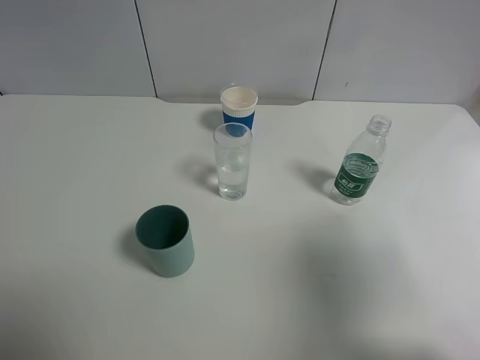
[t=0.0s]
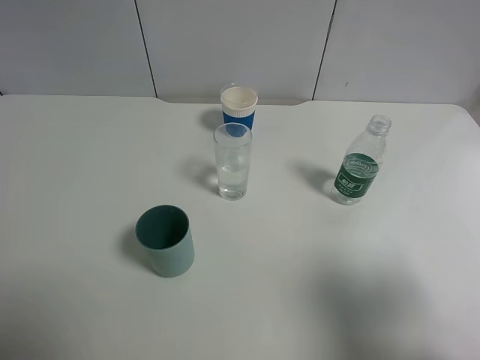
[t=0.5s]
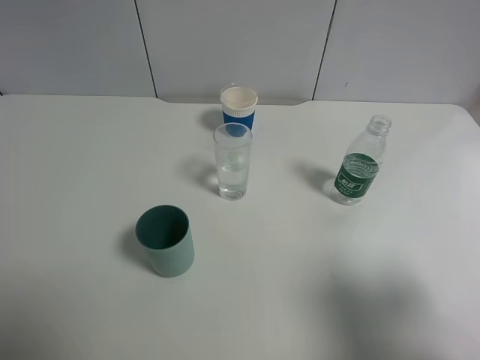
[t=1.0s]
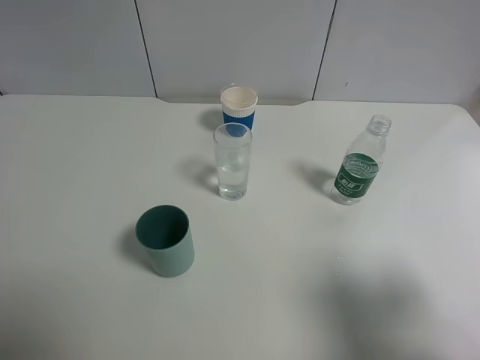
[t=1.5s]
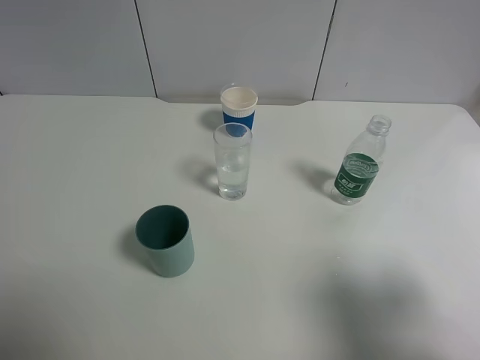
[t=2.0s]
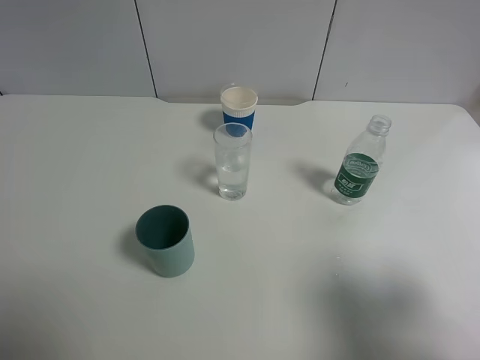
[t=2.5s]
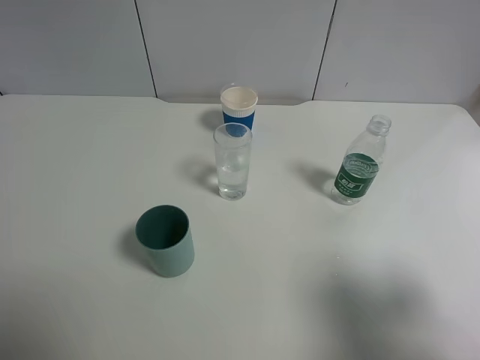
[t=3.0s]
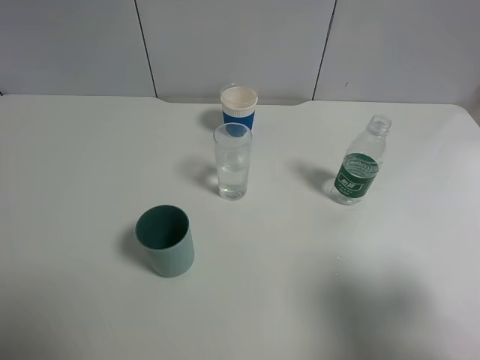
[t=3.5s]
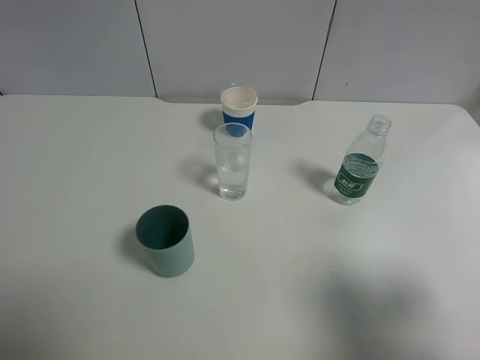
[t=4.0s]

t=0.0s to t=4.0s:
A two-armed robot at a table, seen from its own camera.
Task of the whole recording: use a gripper to hold the bottle of the drink and pour it into a random cup.
t=0.0s to t=2.0s: The right gripper moves downward, approximately 5 cm.
t=2.0s to t=4.0s: Both grippers stay put.
